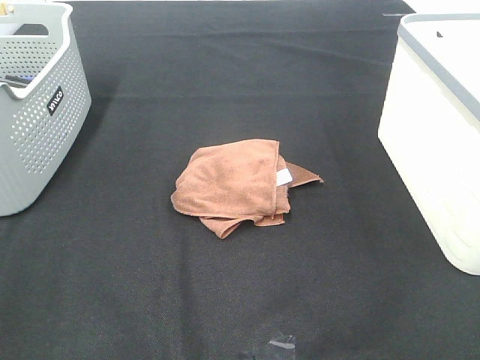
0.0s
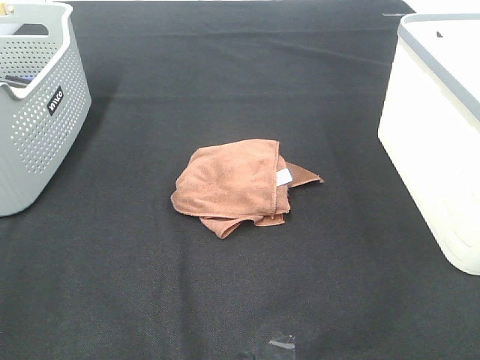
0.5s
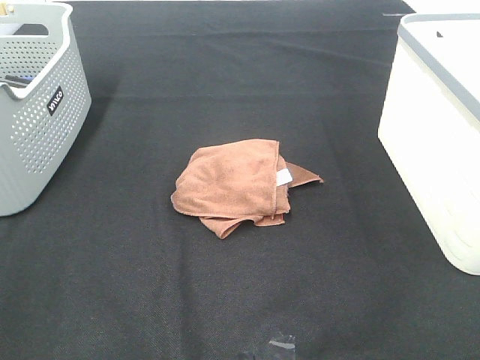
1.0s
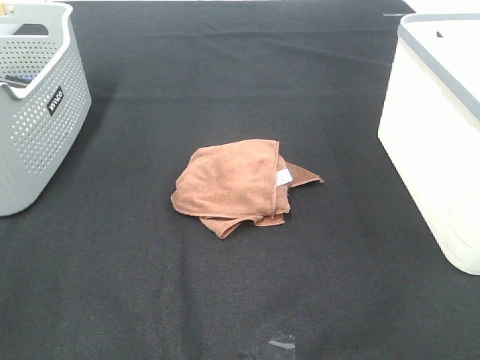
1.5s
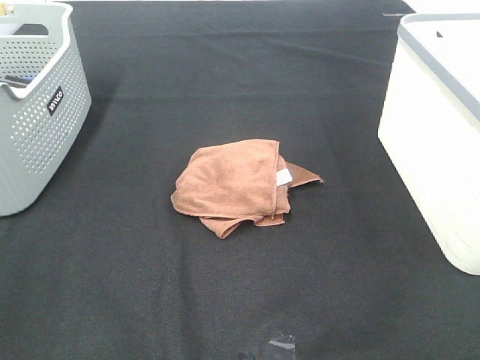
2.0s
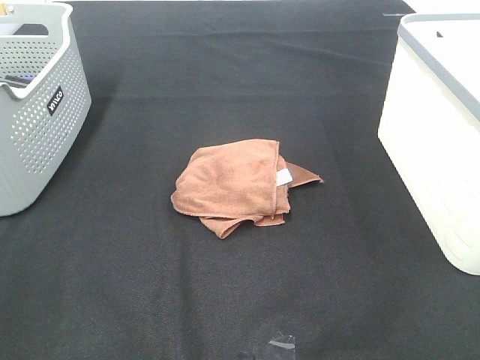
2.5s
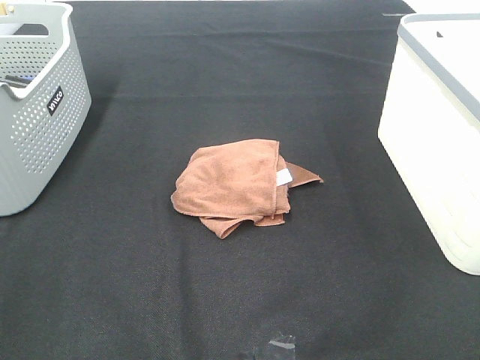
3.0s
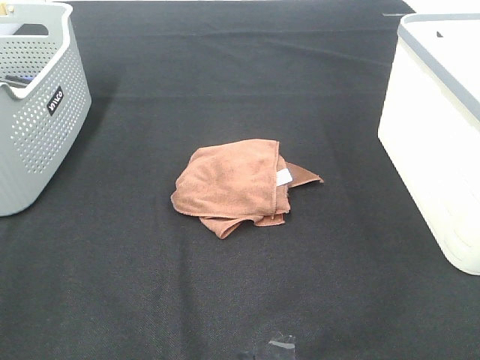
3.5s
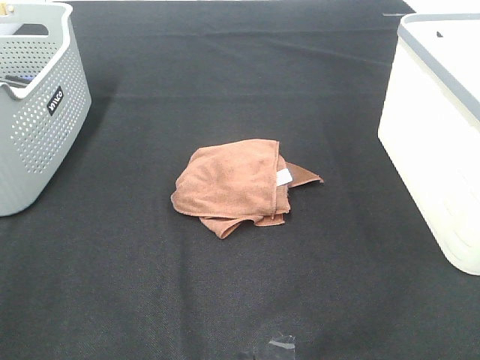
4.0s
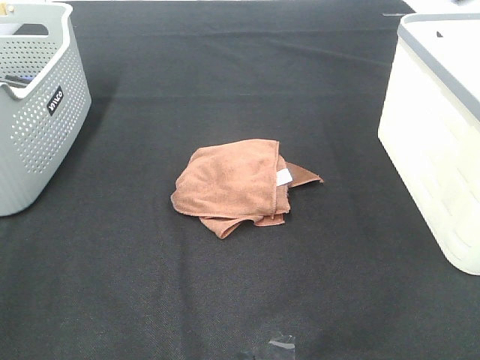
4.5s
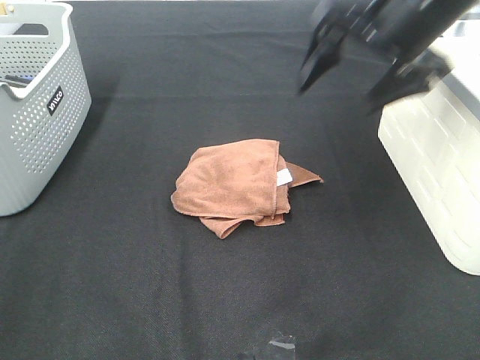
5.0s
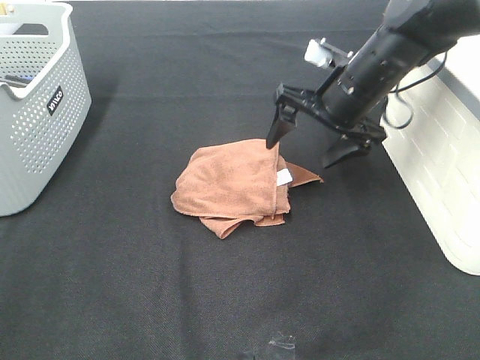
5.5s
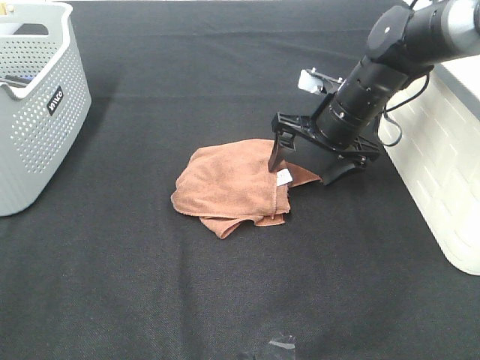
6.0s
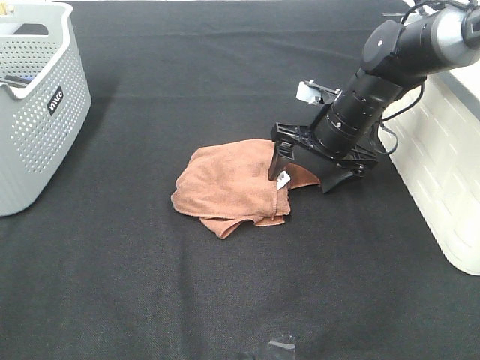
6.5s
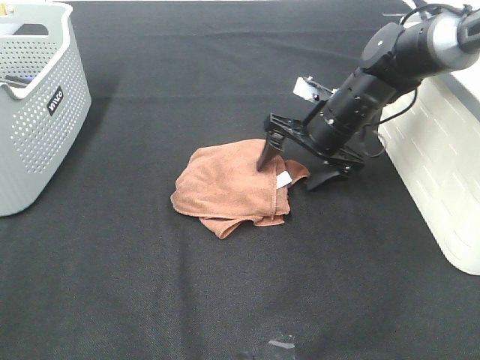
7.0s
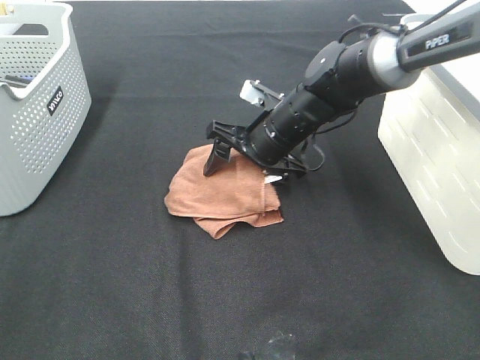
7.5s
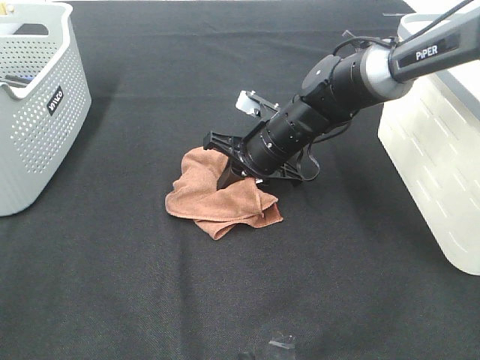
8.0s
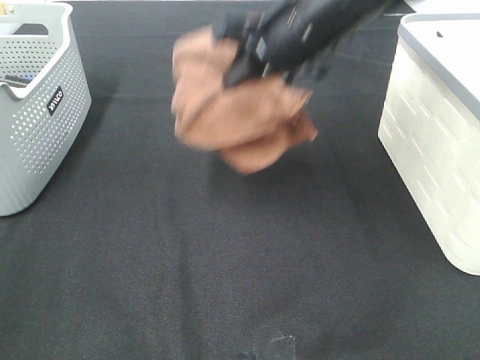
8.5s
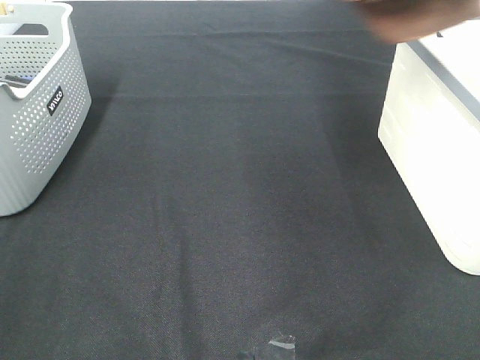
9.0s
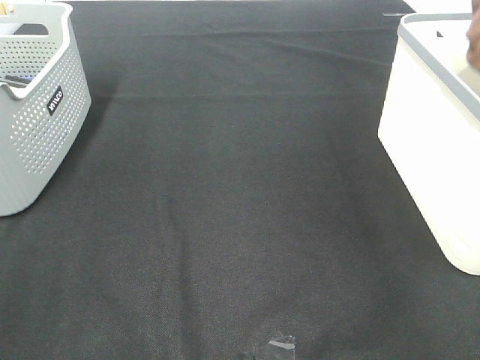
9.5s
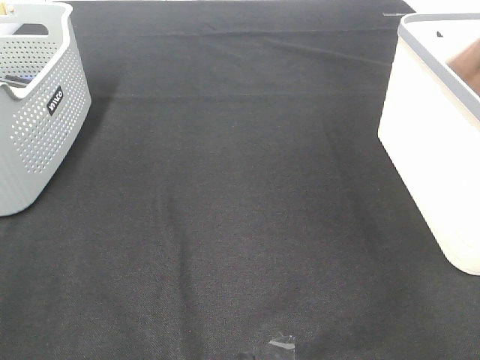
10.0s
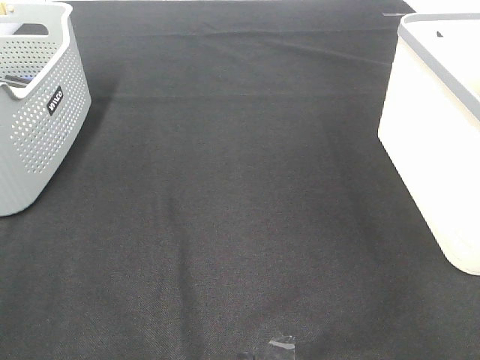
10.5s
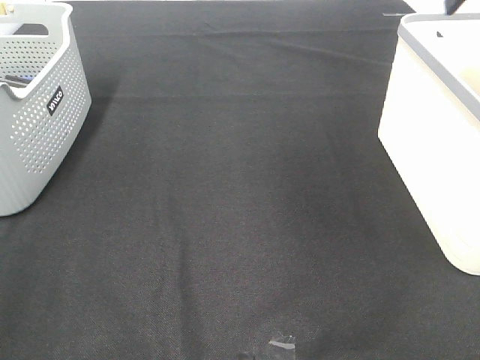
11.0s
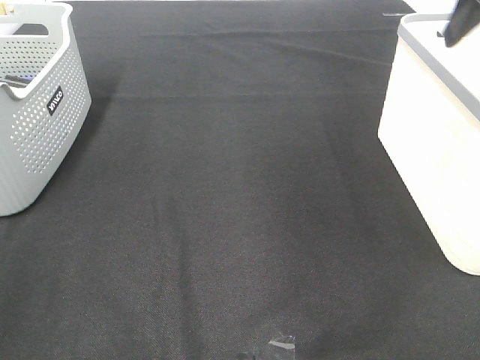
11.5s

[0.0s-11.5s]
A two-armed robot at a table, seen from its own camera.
Step, 0.0s to 7.5s: Right hand: grab the folded brown towel.
Step, 8.0s to 10.0s: Right hand: place the brown towel in right basket.
0.0s to 2.0s: Neither gripper changes place.
4.0s to 6.0s: The right gripper moves forward, downward and to the left, about 40 cm.
6.0s to 7.5s: The right gripper is displaced to the left by about 10 cm.
7.5s to 9.5s: The right gripper is displaced to the right and upward by approximately 40 cm, and closes.
9.5s to 11.5s: The right gripper heads to the left and backward, covering some 15 cm, and opens up.

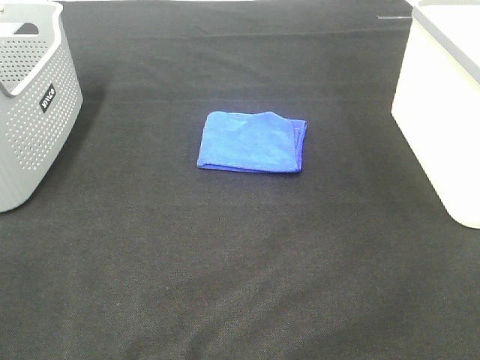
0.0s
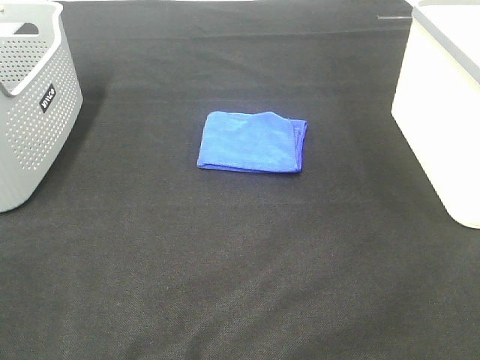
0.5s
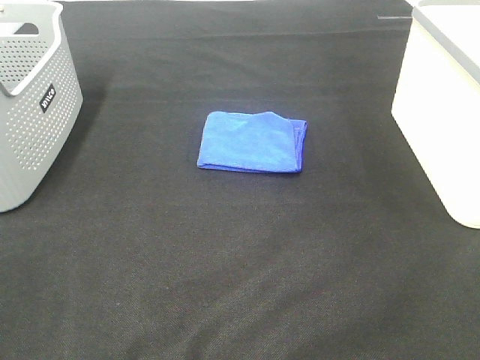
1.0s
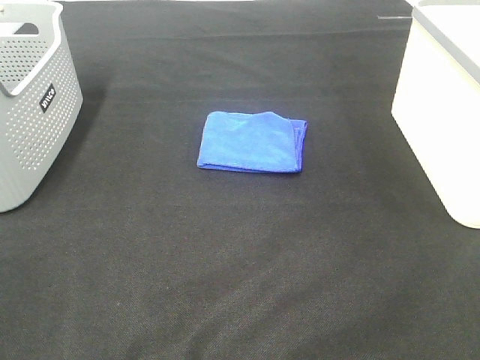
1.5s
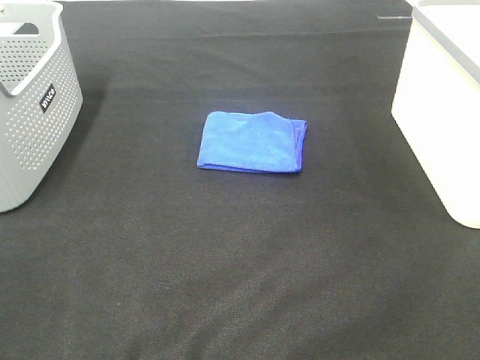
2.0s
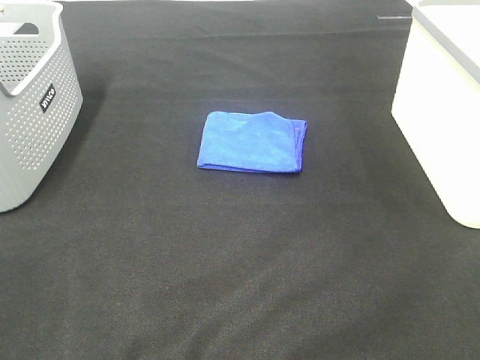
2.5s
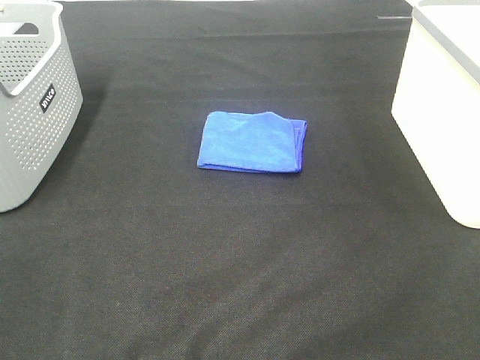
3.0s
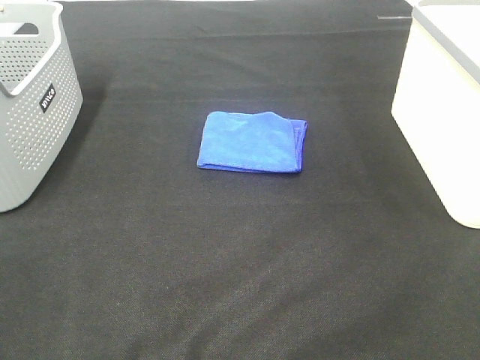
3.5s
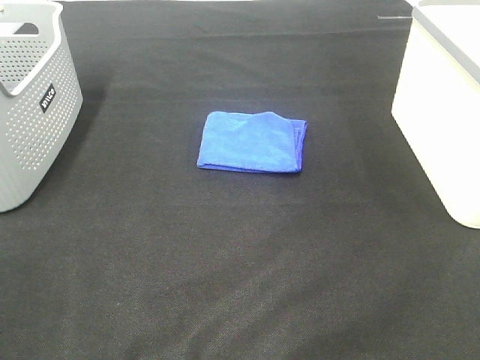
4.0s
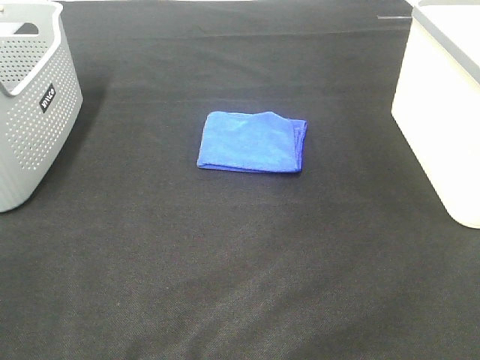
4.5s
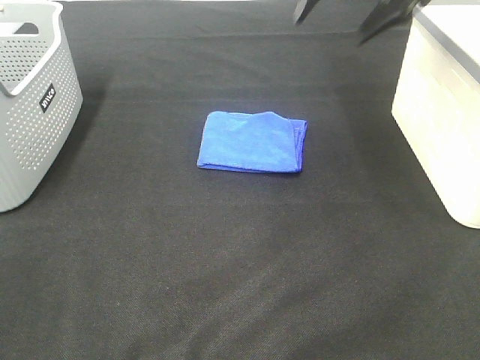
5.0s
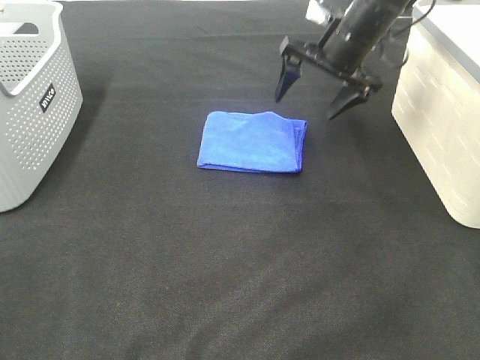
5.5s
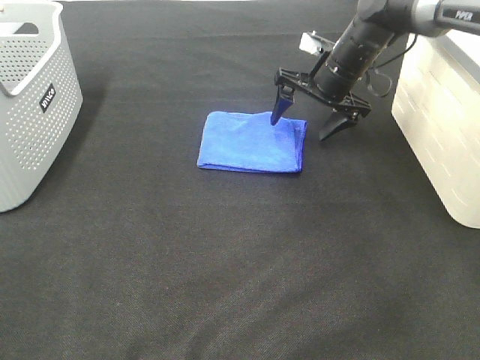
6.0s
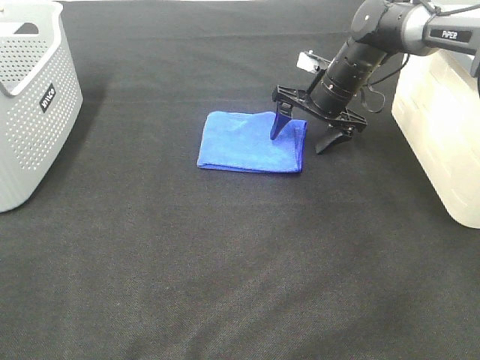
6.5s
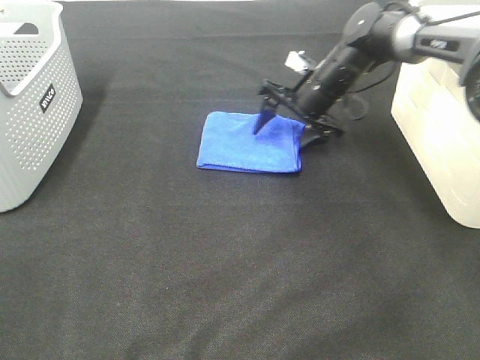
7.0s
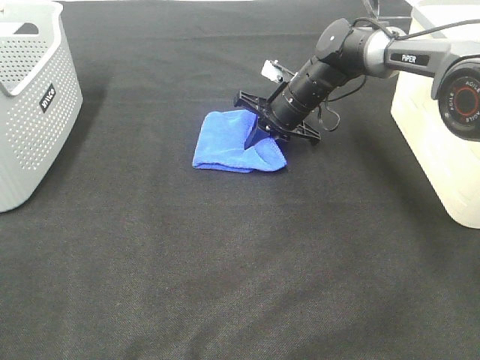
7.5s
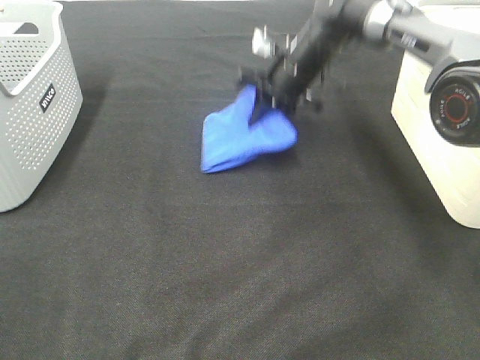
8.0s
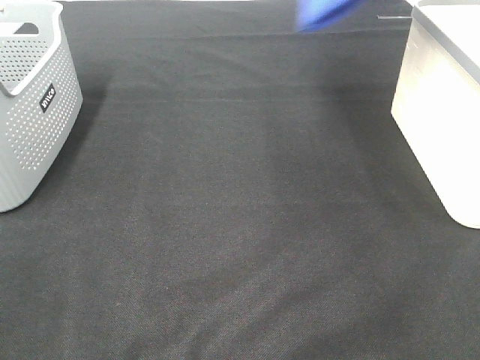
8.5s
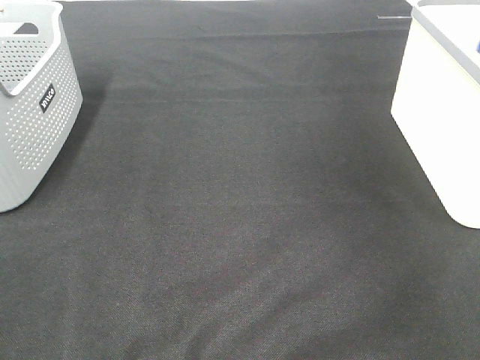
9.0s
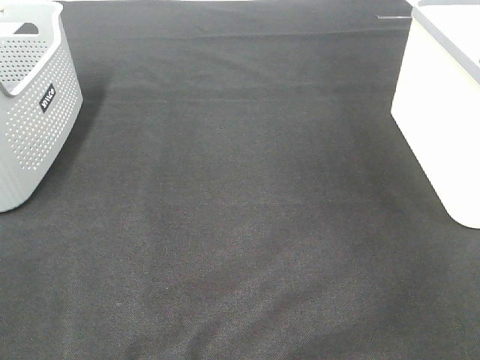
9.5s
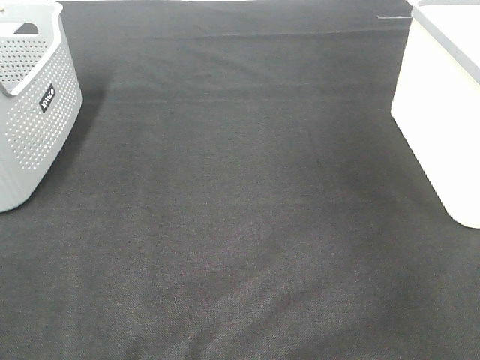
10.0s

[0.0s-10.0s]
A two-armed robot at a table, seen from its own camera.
Step, 0.0s to 7.5s: Right hand: grab the folded blue towel.
Step, 8.0s to 9.5s: Right hand: place the blue towel in right basket.
0.0s to 2.0s: Both grippers stay about where they are.
4.0s to 6.0s: The right gripper is displaced forward, downward and to the left by roughly 40 cm.
6.0s to 8.0s: The right gripper shifts approximately 5 cm to the left, and closes its fingers.
8.0s to 10.0s: The right gripper moves to the right and upward, roughly 35 cm, and opens.

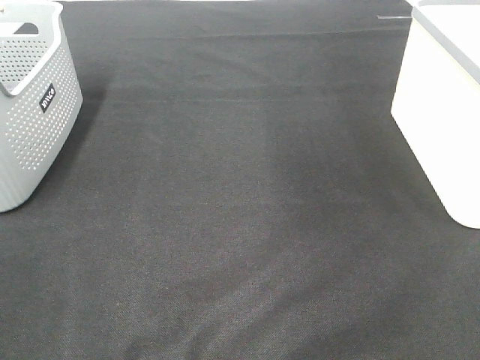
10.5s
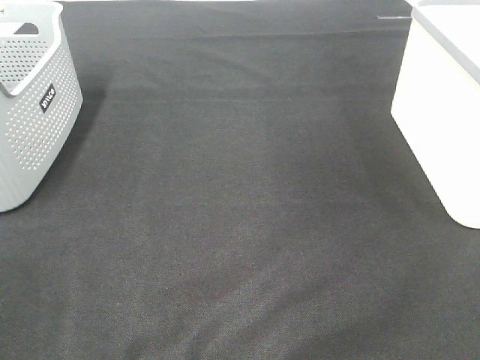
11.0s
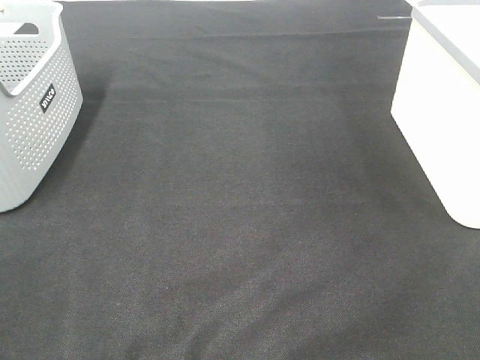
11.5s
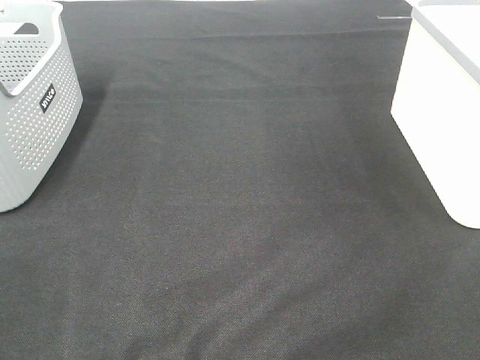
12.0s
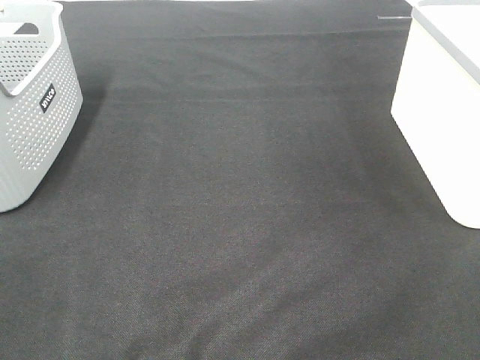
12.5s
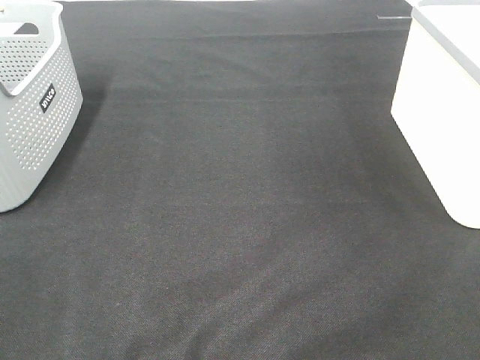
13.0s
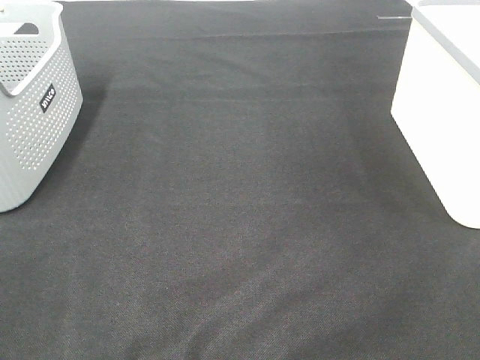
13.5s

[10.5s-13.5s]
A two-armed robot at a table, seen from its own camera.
12.0s to 13.5s: Both grippers stay put.

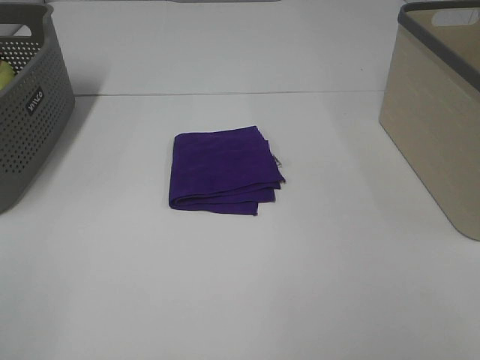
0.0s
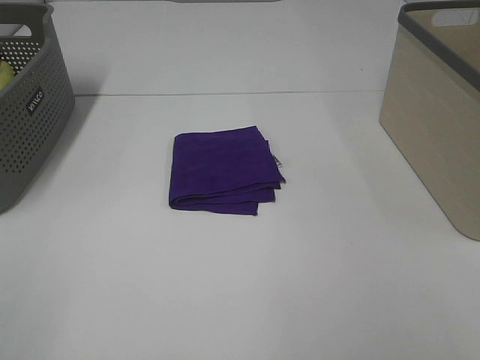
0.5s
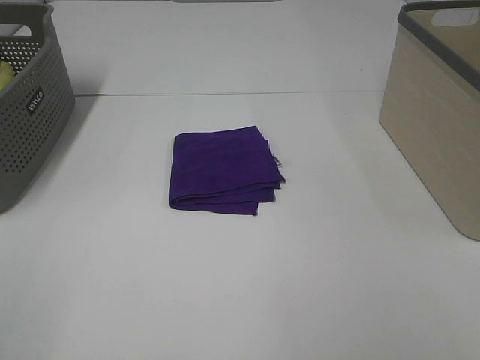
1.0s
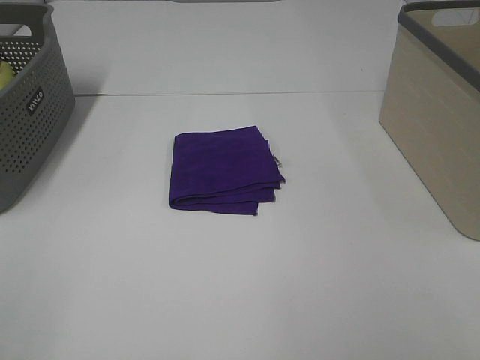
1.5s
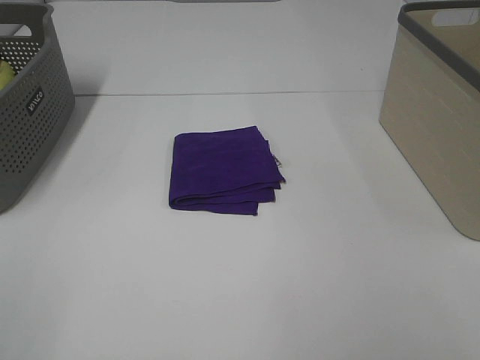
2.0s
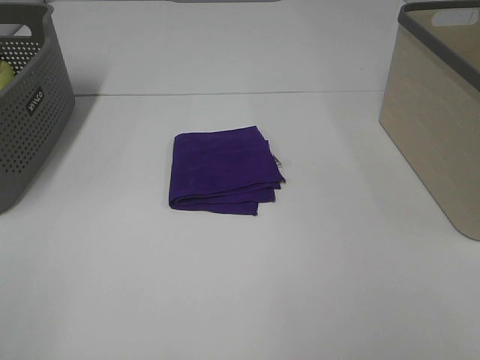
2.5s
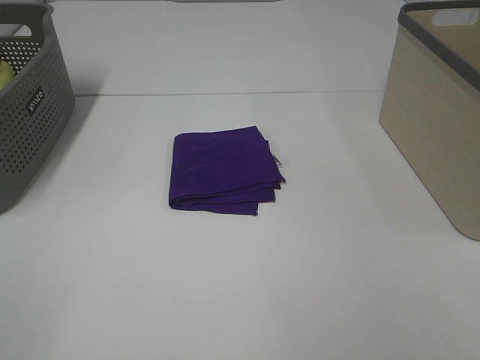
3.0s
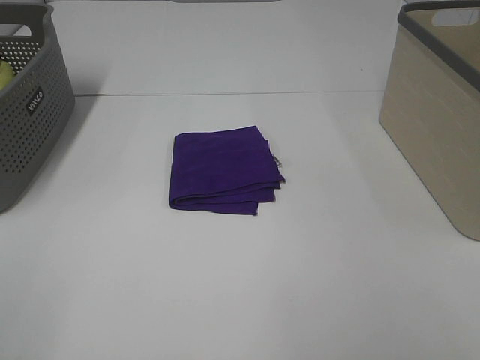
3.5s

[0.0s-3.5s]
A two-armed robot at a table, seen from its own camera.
0.0s to 3.5s: Both grippers stay about where they are.
